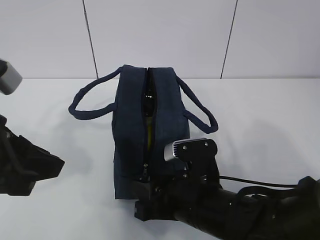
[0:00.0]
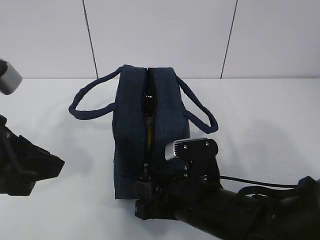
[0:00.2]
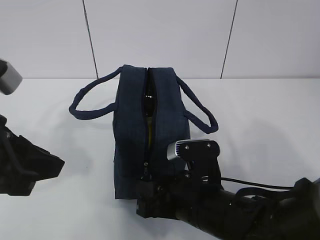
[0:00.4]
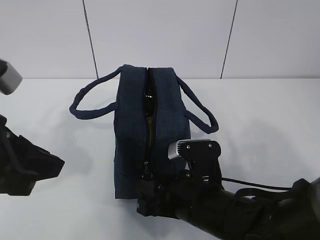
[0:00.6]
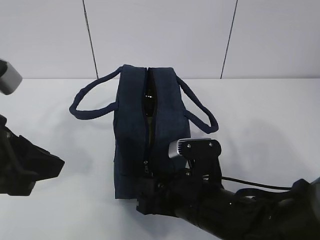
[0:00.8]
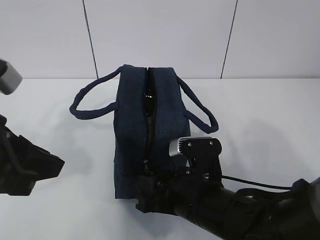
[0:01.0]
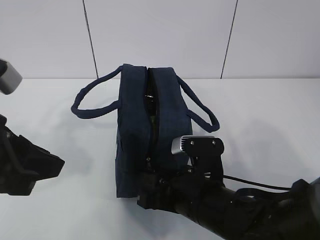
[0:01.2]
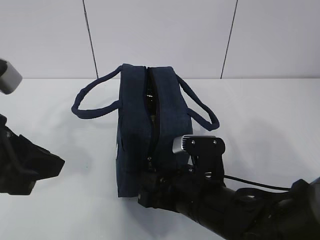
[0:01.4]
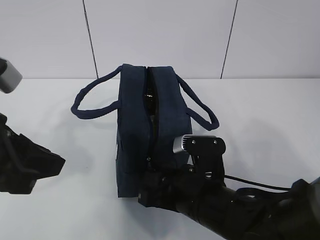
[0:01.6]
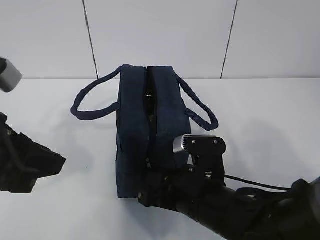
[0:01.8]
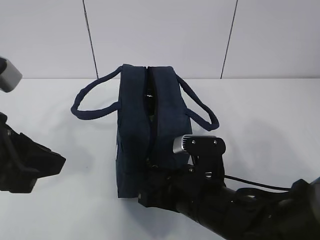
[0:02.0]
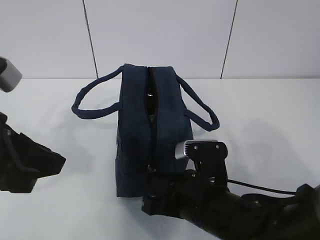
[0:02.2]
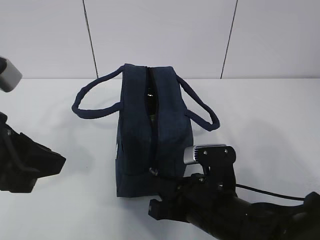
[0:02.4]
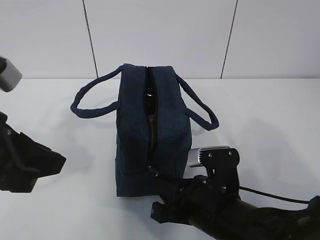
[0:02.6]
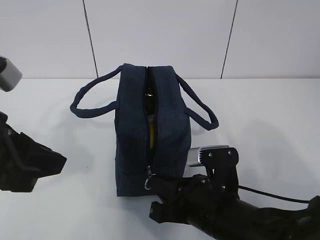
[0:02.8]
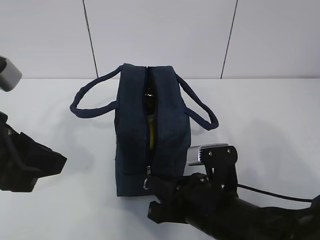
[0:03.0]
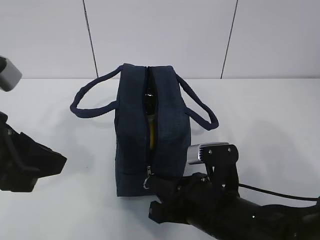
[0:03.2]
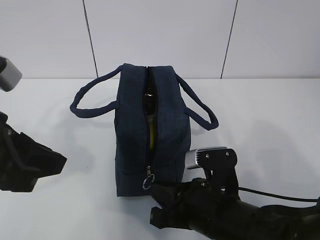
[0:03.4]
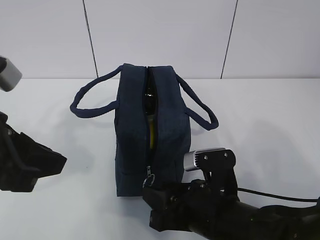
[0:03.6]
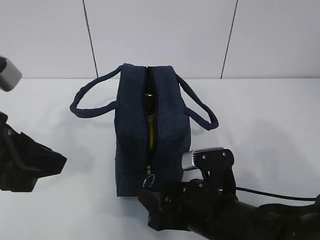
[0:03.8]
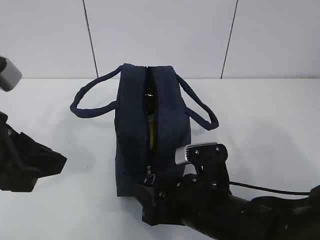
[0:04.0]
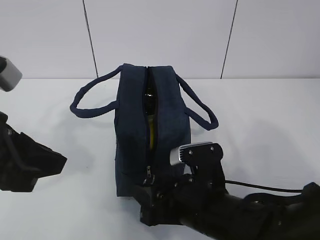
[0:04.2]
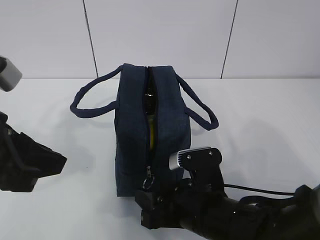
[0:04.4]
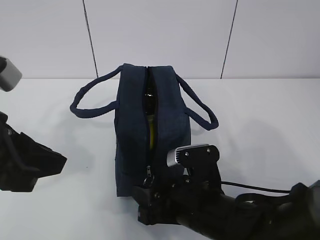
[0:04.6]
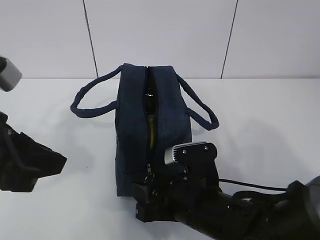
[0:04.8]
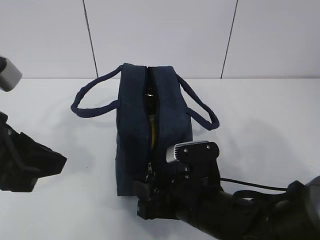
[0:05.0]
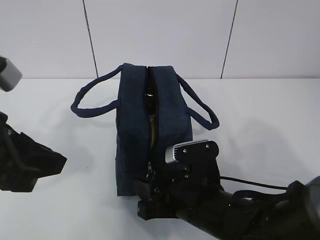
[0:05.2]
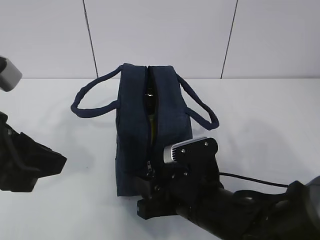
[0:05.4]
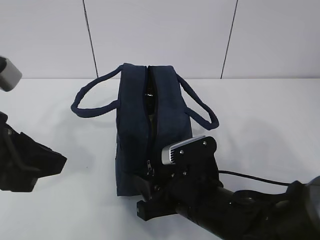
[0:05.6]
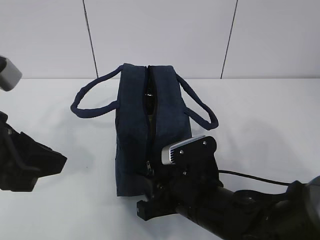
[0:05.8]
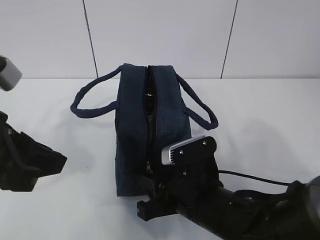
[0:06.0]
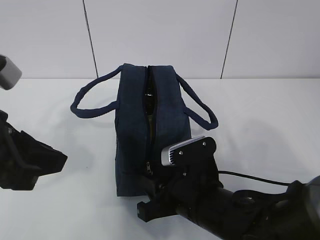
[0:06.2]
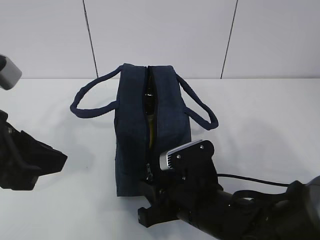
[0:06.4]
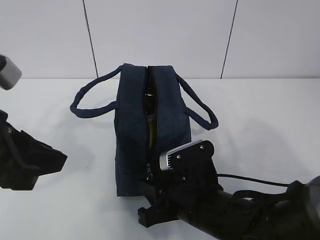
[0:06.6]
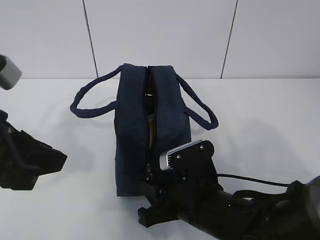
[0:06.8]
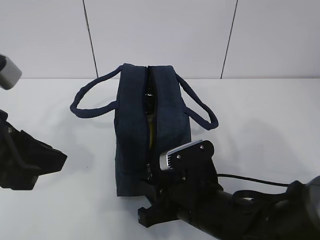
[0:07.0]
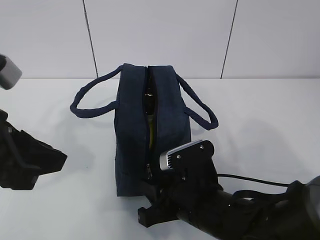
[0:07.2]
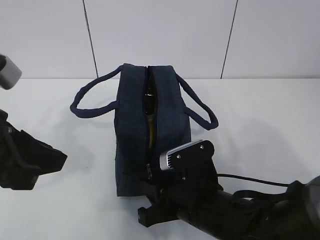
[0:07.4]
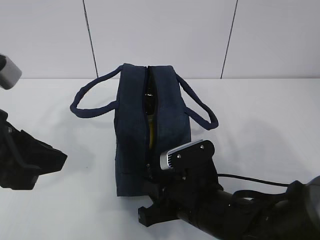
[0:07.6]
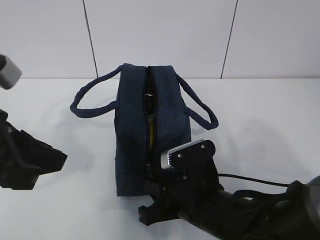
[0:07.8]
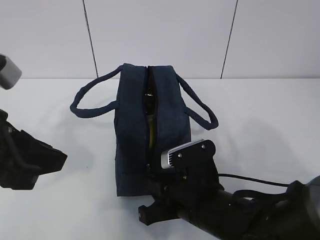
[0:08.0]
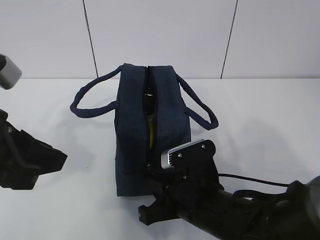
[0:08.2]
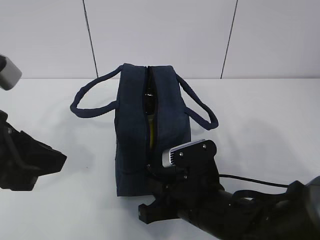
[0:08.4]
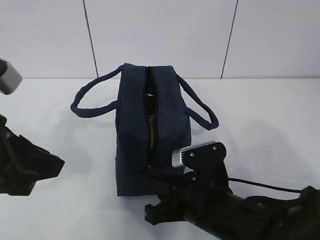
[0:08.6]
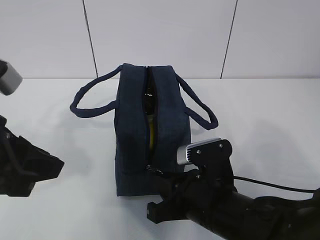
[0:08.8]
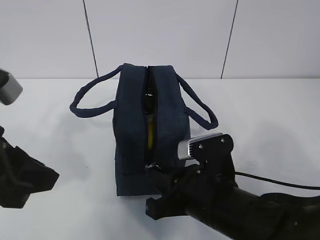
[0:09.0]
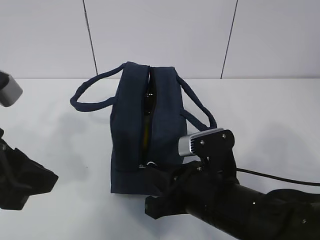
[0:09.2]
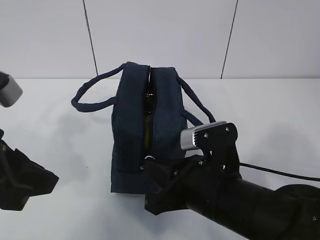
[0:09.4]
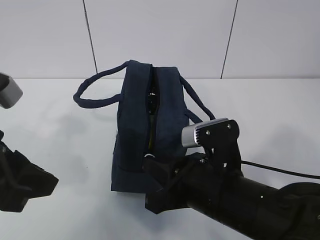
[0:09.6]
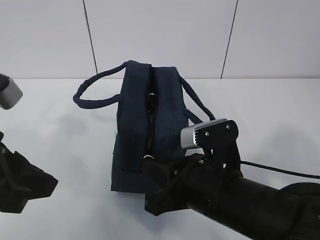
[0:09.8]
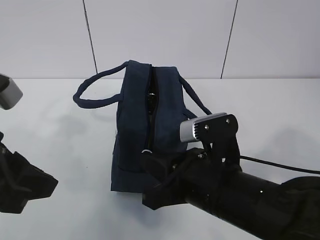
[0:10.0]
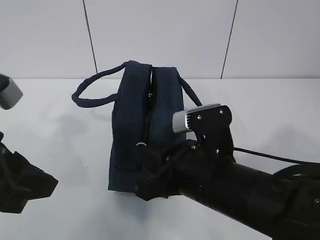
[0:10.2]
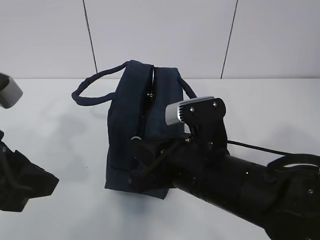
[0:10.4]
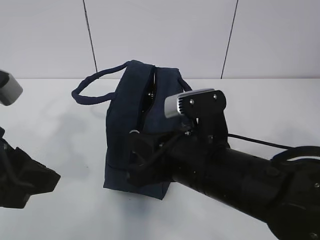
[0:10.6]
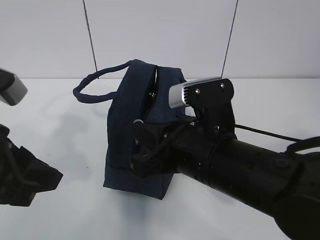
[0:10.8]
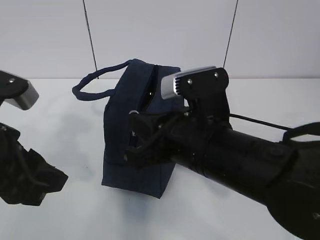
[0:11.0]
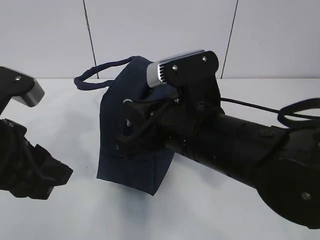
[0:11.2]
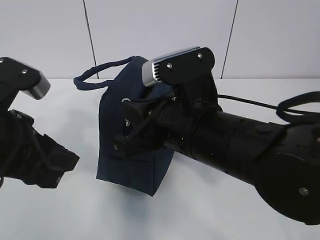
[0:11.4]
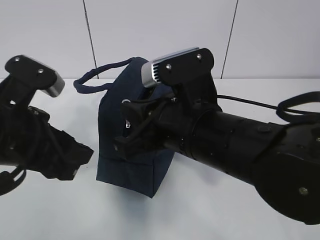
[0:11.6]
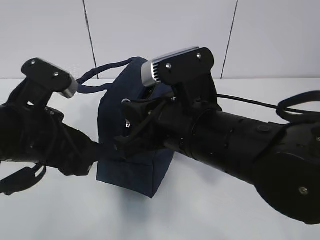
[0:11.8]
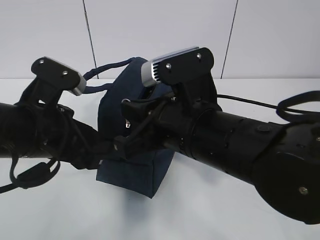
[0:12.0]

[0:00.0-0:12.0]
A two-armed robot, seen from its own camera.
Step, 0:00.0 to 0:05.8: Pull the zipper with your right hand.
0:00.0 to 0:01.6: The grippers make only small movements.
0:01.6 to 0:03.0: The right gripper closes up.
0:03.0 to 0:04.4: The right gripper opens its fingers.
0:04.4 to 0:06.0: The grippers stay close to where they were, moving slightly.
0:06.0 to 0:07.6: Neither gripper changes place.
0:07.6 to 0:09.0: The grippers stay close to where they were, moving slightly.
0:09.0 to 0:10.4: The right gripper goes about 5 cm upward.
0:10.4 to 0:12.0: The left gripper shifts roughly 5 cm forward, and opens. The right gripper travels upward by some 5 cm.

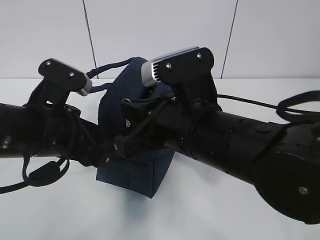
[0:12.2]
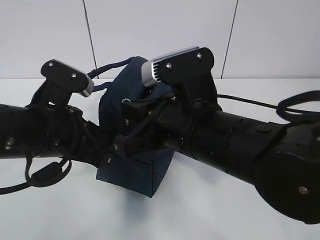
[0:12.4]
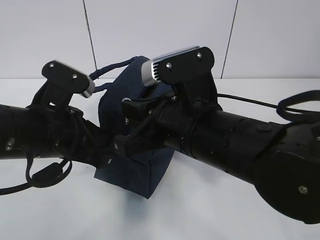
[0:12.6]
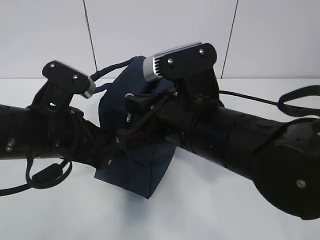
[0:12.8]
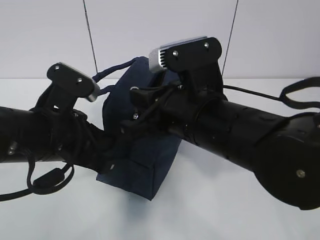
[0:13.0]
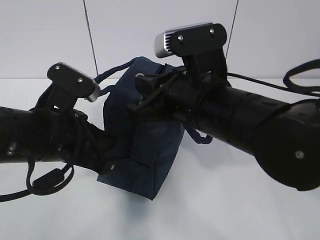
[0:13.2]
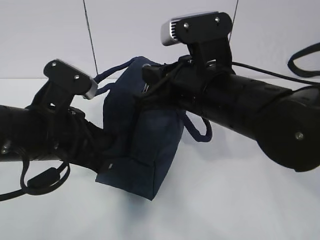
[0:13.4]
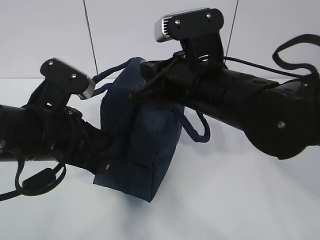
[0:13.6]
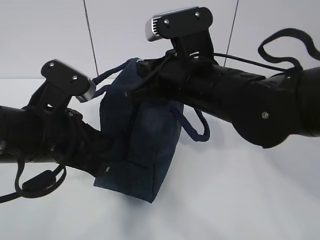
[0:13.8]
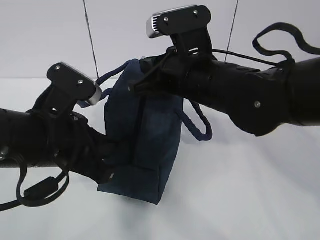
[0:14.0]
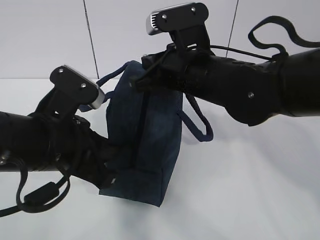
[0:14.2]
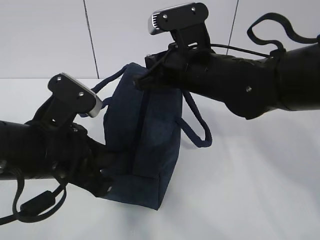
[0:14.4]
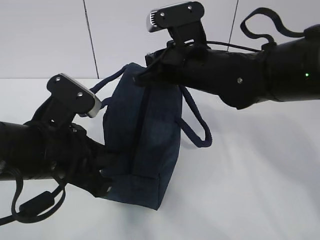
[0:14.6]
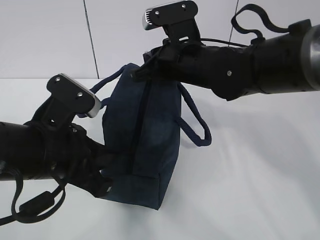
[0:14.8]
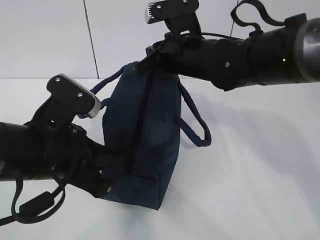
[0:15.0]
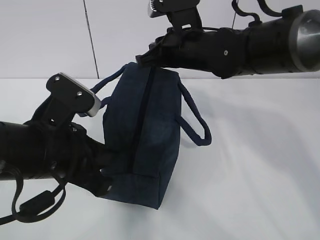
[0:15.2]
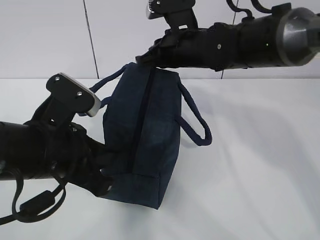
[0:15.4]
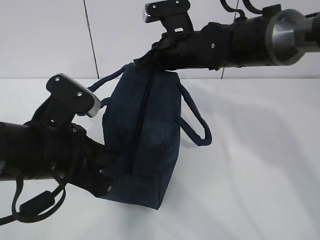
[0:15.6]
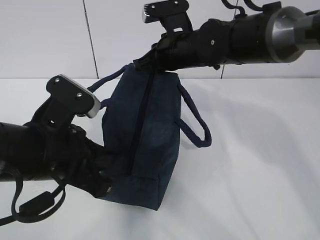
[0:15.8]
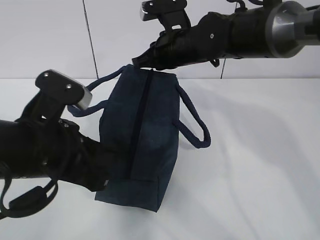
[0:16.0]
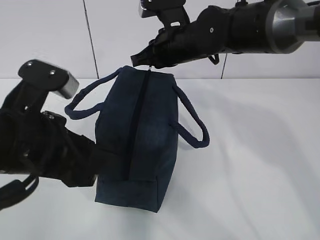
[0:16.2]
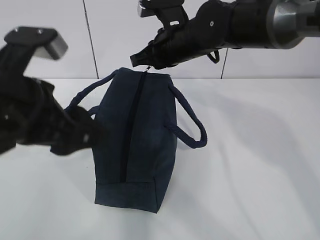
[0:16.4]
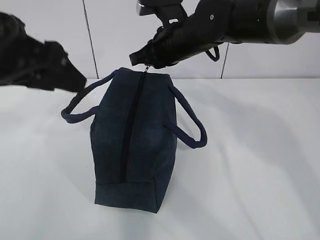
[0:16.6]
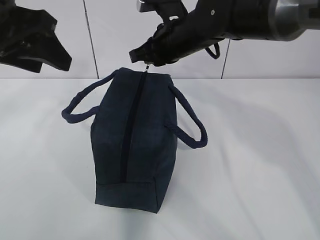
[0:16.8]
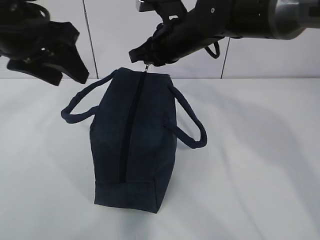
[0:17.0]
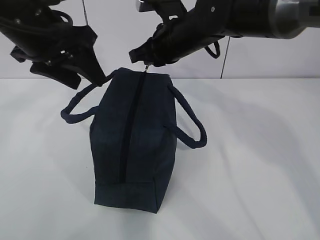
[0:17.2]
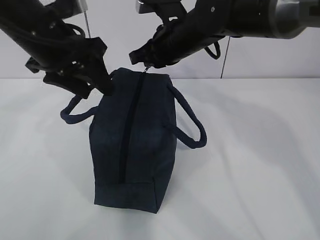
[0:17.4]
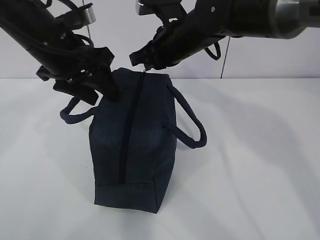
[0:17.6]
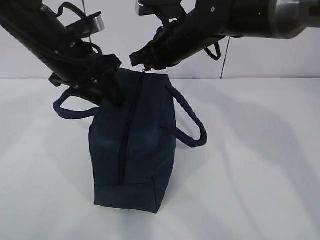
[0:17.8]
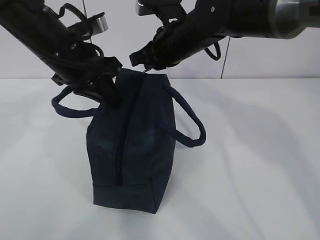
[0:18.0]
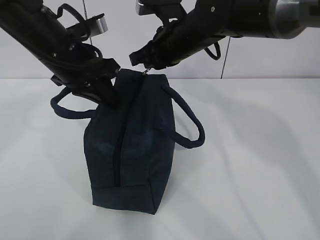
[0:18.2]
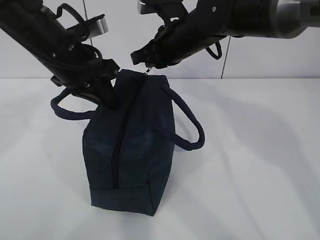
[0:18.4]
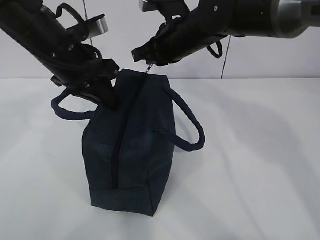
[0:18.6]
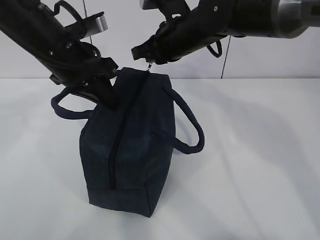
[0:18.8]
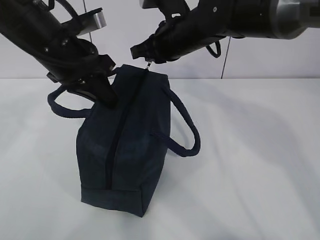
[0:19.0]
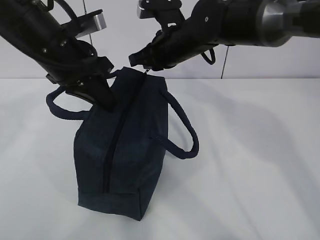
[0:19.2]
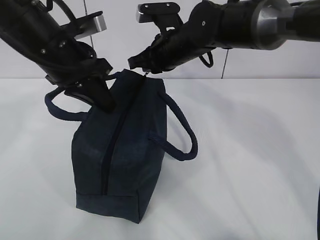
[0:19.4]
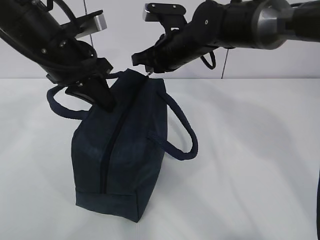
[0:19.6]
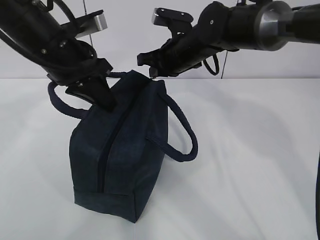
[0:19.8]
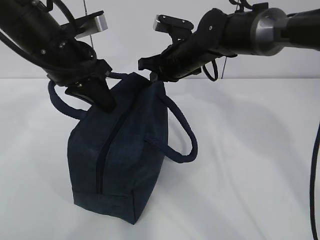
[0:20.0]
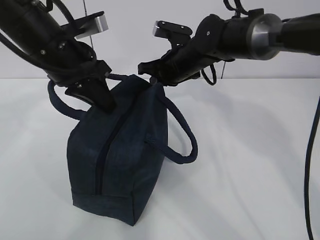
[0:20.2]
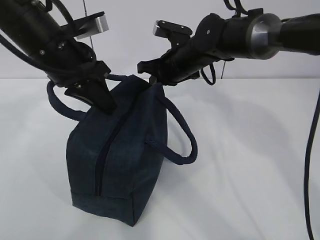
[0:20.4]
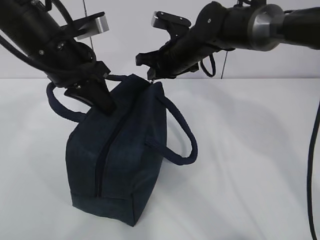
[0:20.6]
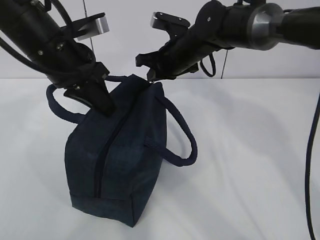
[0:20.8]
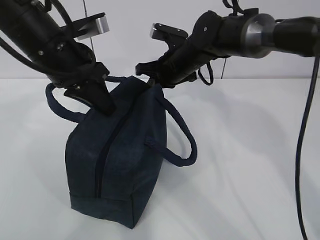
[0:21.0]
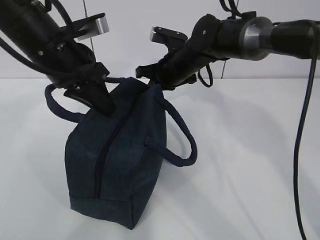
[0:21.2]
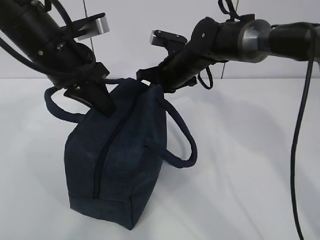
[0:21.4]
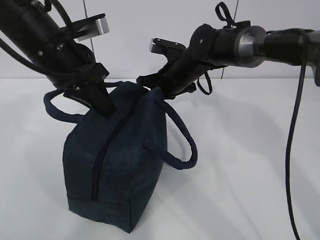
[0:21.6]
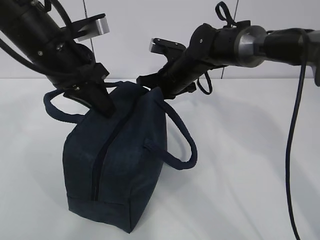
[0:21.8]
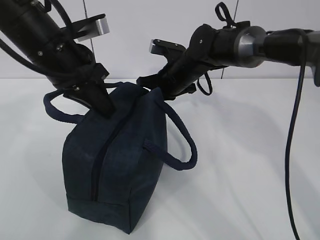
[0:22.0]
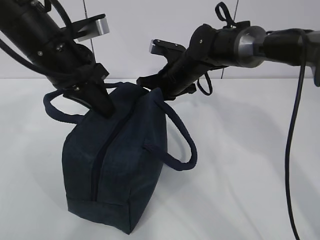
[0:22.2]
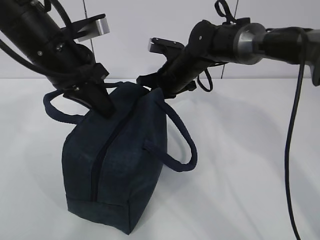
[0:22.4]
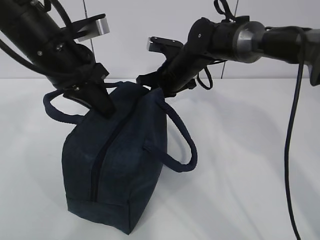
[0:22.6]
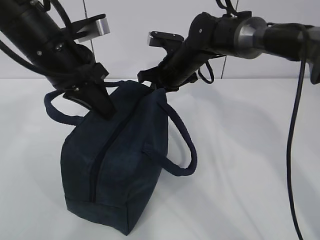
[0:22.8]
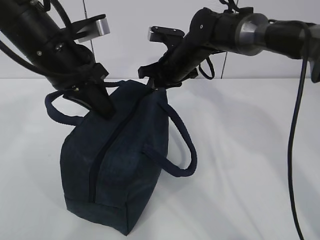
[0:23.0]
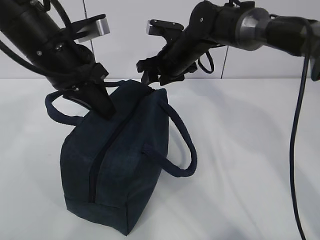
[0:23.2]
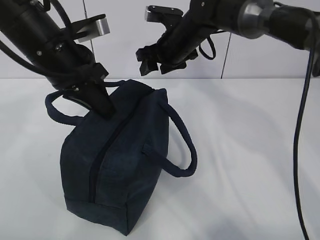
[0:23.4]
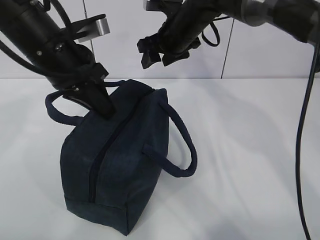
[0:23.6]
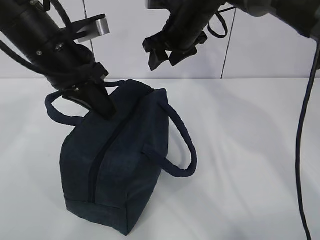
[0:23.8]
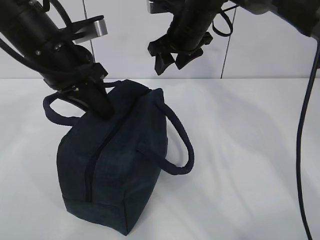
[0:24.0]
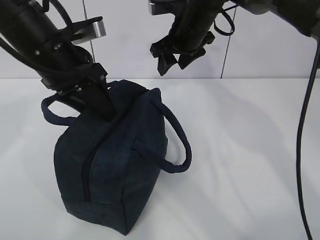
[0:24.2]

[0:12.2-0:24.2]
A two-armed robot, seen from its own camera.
0:12.2 to 0:13.8: The right gripper goes roughly 5 cm forward. Meanwhile the left gripper closes up.
0:13.8 to 0:15.2: The right gripper is displaced forward by roughly 10 cm.
0:15.2 to 0:16.6: The left gripper travels upward by some 10 cm, and opens its fingers.
0:16.6 to 0:18.2: The left gripper is displaced forward and downward by some 15 cm, and closes its fingers.
0:18.2 to 0:19.8: The right gripper moves about 5 cm.
0:19.8 to 0:22.6: The grippers stay close to where they were, moving slightly.
0:22.6 to 0:24.2: The left gripper opens up. Meanwhile the right gripper is displaced upward by some 10 cm, and opens its fingers.
